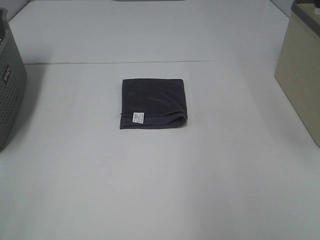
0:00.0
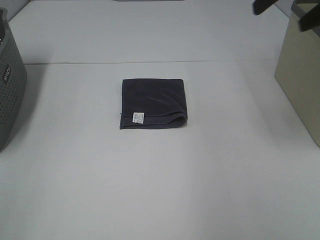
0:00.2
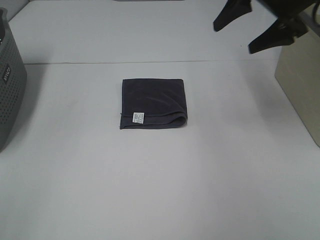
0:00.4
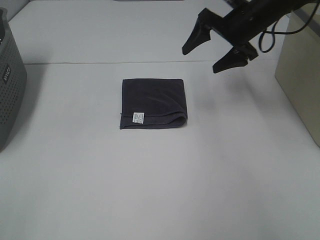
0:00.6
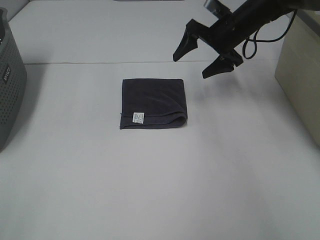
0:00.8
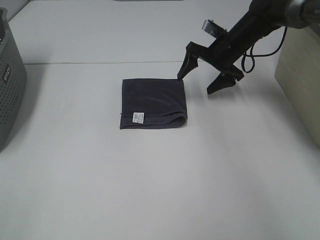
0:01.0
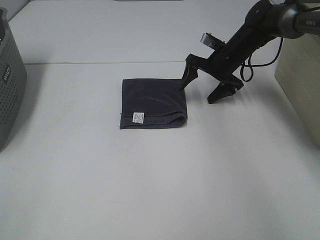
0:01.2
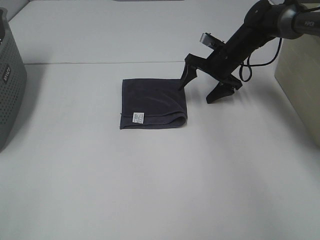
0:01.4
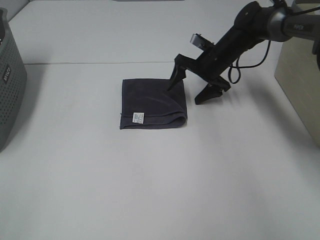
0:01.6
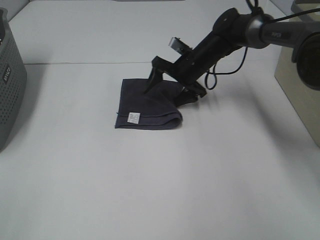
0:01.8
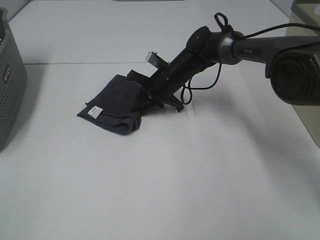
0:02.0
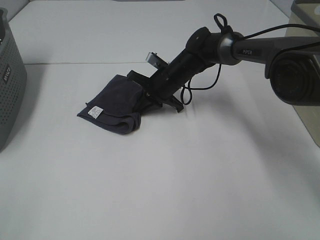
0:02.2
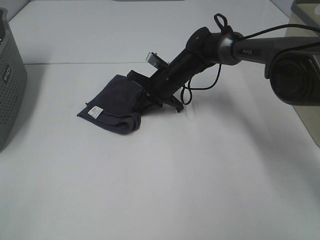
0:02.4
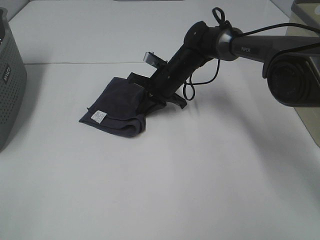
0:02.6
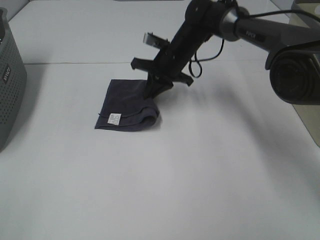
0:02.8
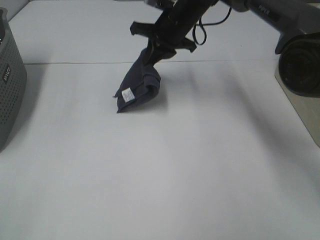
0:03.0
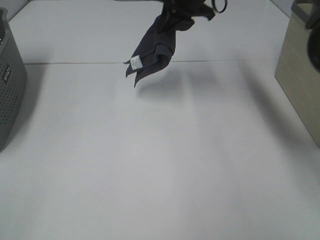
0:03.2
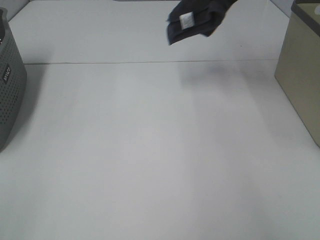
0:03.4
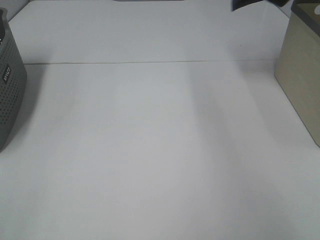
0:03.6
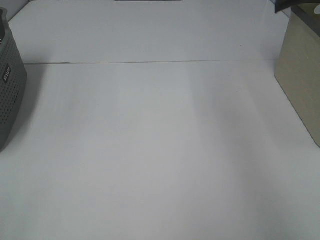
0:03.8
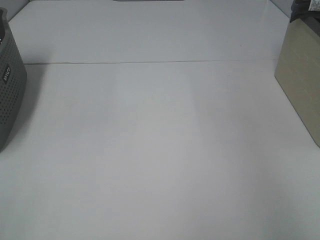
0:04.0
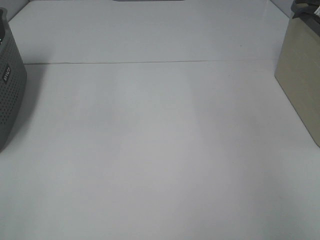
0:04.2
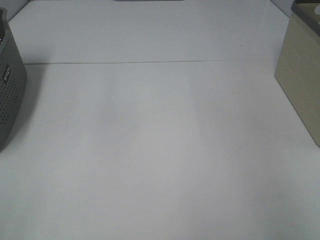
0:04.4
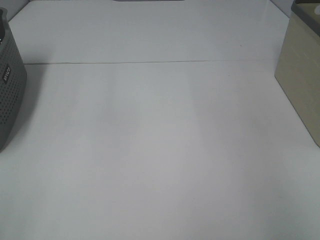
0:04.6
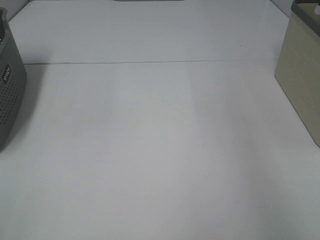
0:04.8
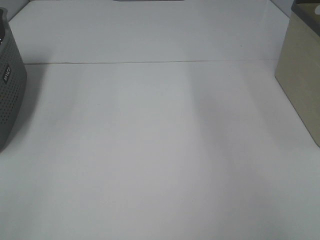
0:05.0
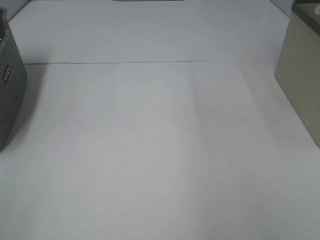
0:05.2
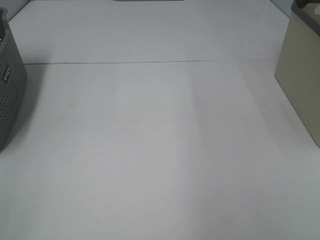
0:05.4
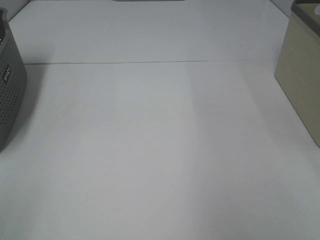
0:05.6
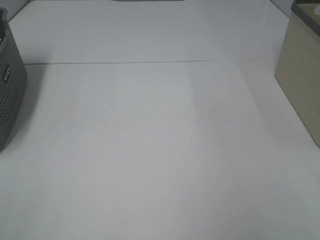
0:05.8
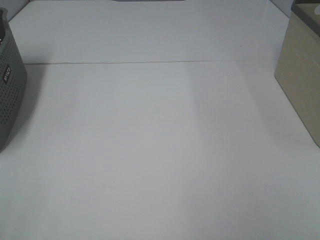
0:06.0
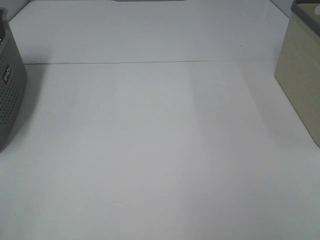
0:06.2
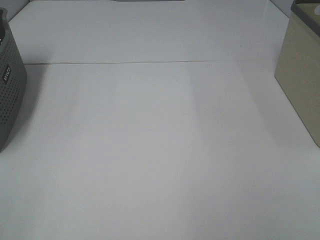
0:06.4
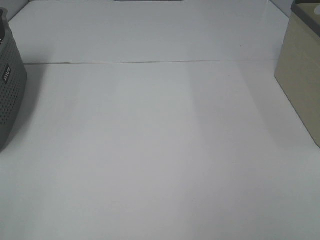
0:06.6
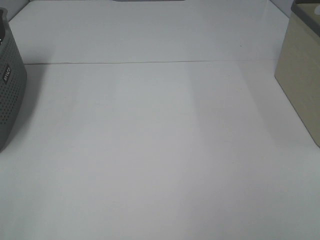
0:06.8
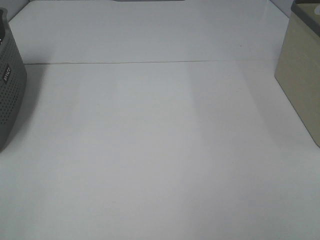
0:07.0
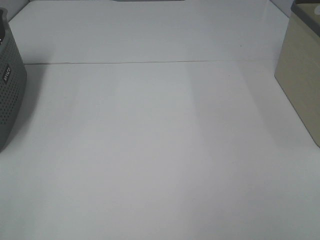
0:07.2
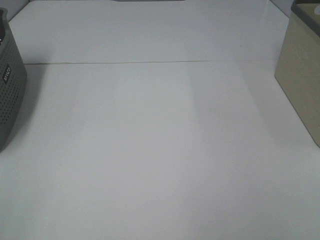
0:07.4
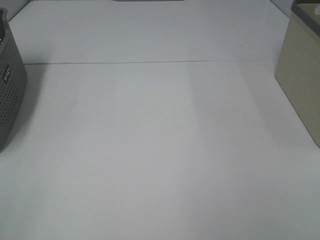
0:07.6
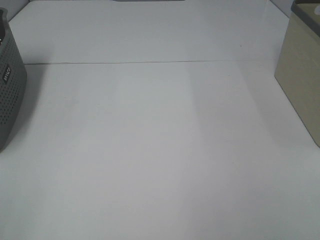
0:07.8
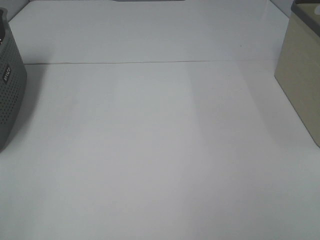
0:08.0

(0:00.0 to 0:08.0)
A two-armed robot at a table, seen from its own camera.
Step, 0:00.0 - 0:02.0: Right hand: grab the folded grey towel.
Step, 0:02.2 - 0:04.4: Right hand: place the grey towel in right basket.
0:00.0 - 0:01.6: The right gripper shifts approximately 40 cm downward, forward and to the left.
0:01.6 - 0:03.2: The right gripper moves upward, some 20 cm, and closes its fingers.
0:03.2 - 0:04.8: The right gripper travels to the right by about 30 cm, and opens its fingers.
0:06.4 - 0:08.0: Both grippers stay put.

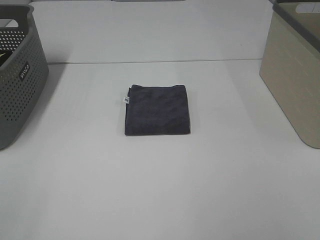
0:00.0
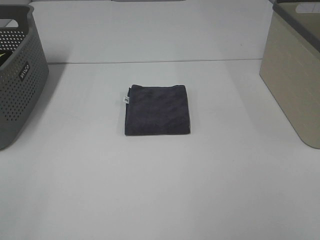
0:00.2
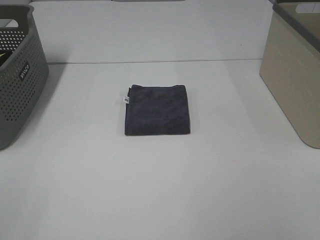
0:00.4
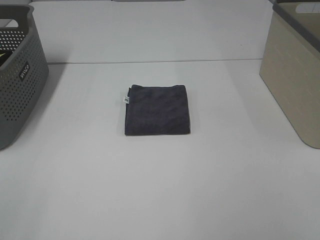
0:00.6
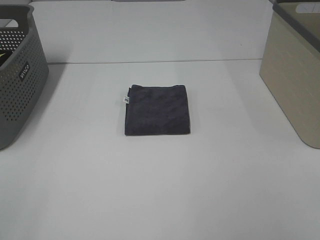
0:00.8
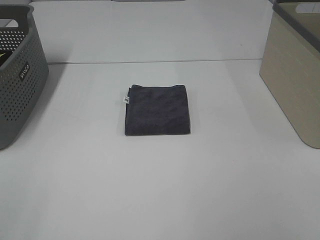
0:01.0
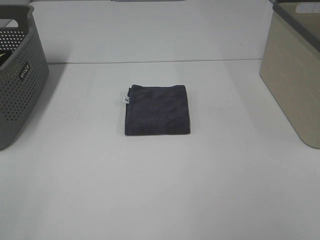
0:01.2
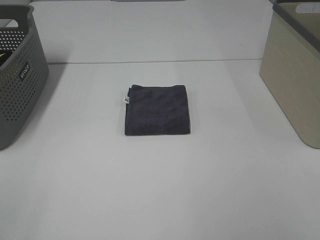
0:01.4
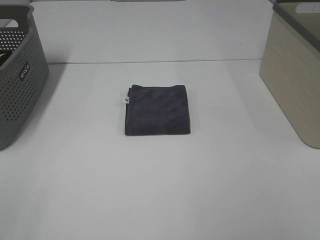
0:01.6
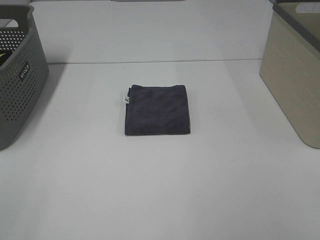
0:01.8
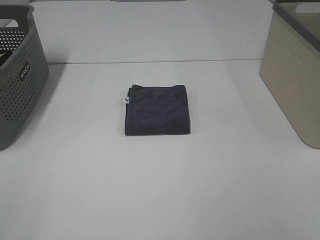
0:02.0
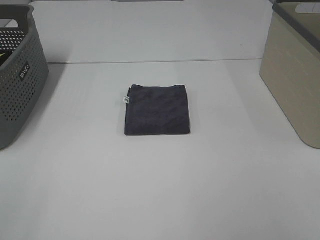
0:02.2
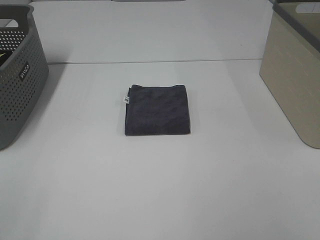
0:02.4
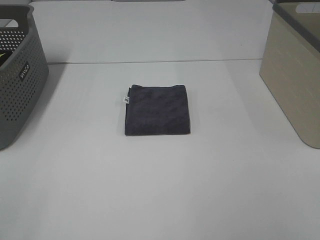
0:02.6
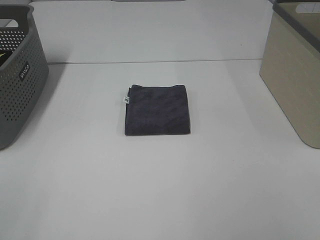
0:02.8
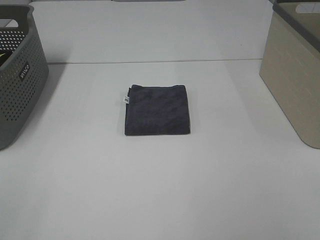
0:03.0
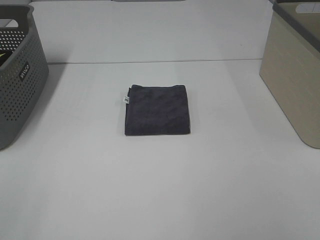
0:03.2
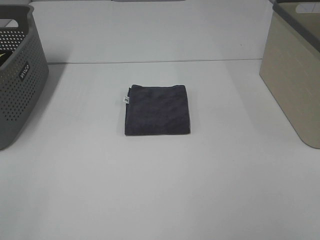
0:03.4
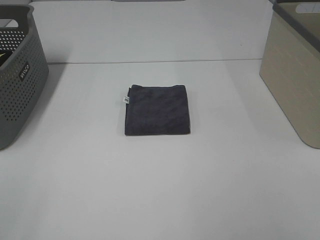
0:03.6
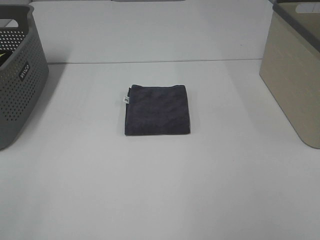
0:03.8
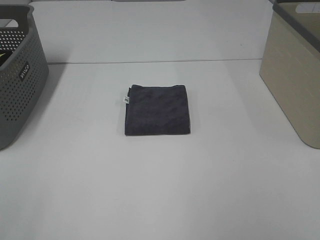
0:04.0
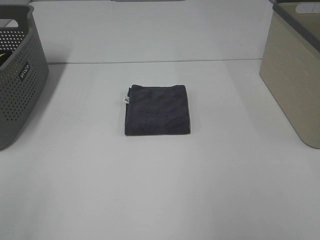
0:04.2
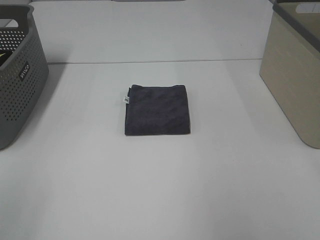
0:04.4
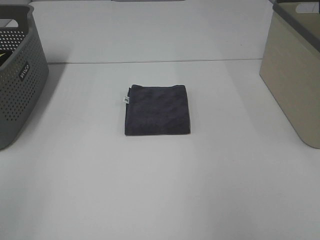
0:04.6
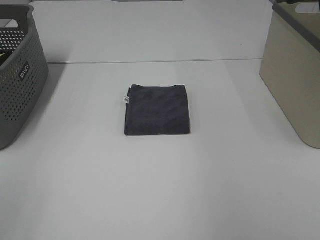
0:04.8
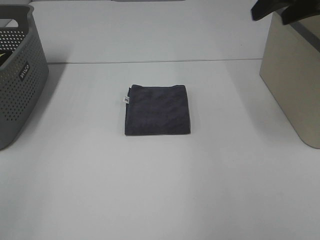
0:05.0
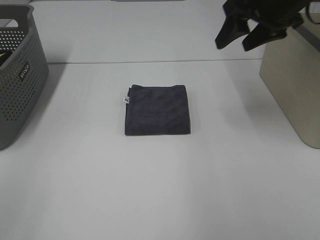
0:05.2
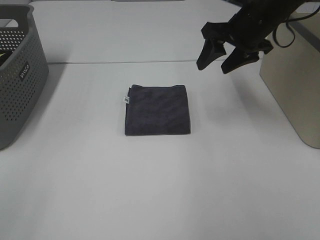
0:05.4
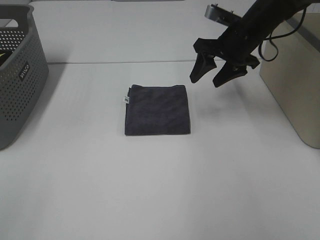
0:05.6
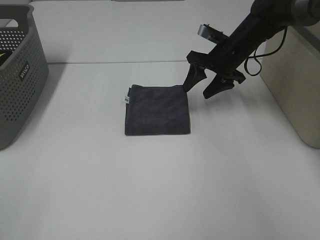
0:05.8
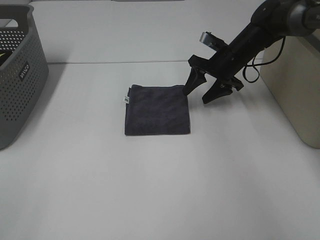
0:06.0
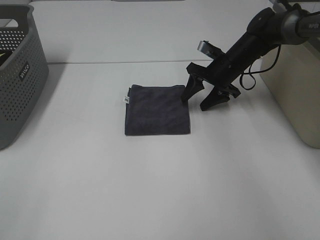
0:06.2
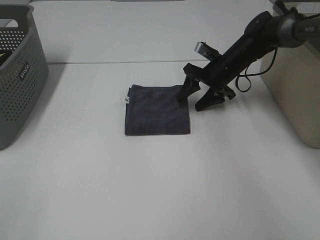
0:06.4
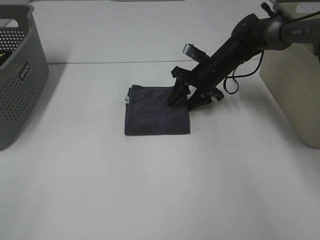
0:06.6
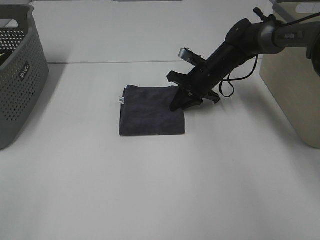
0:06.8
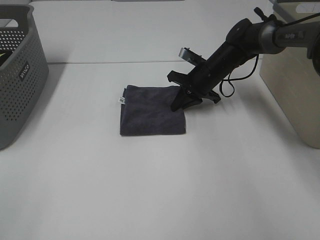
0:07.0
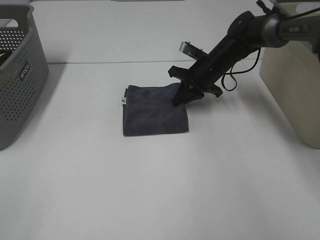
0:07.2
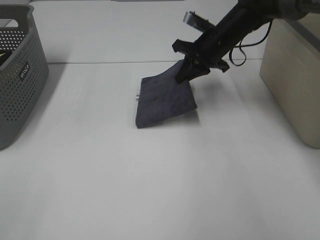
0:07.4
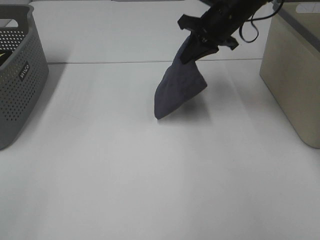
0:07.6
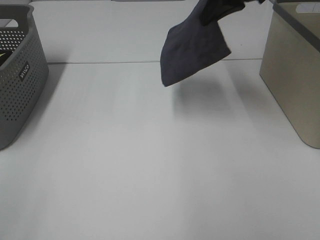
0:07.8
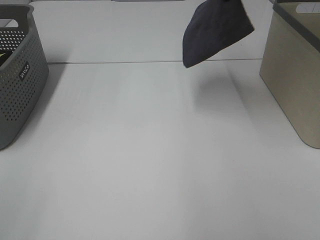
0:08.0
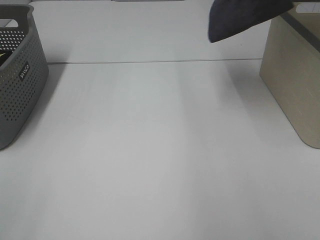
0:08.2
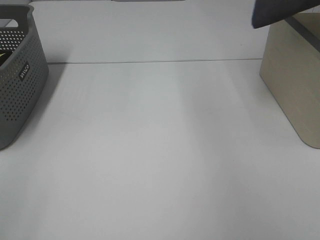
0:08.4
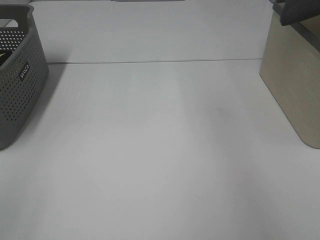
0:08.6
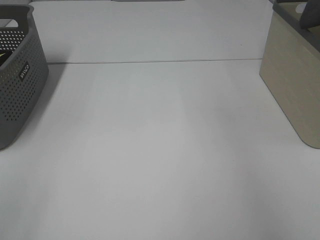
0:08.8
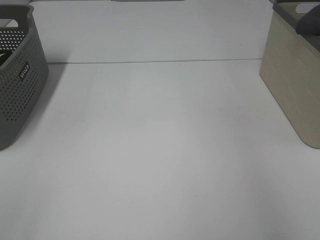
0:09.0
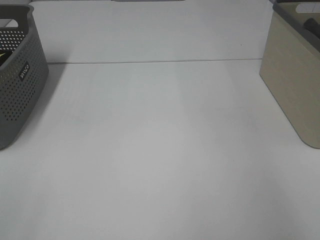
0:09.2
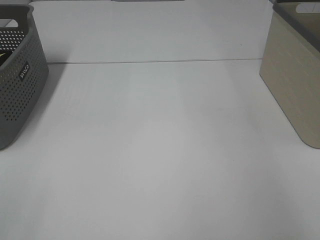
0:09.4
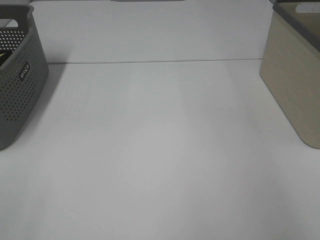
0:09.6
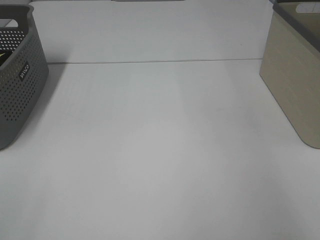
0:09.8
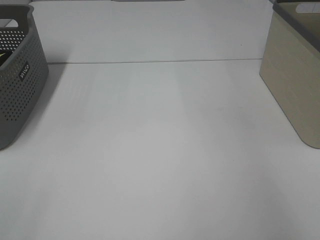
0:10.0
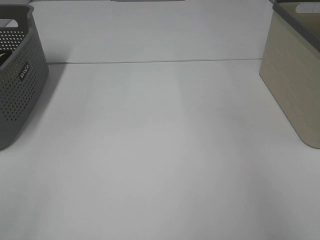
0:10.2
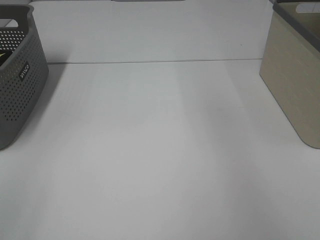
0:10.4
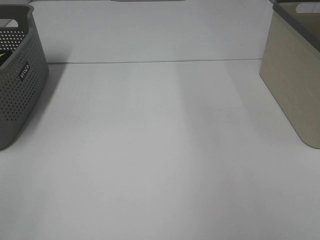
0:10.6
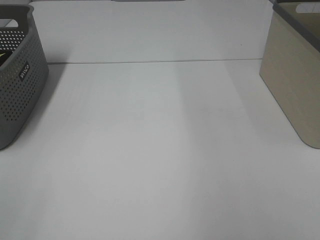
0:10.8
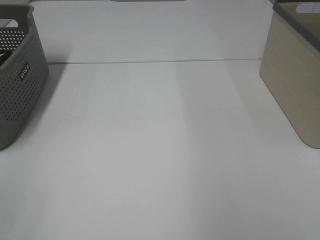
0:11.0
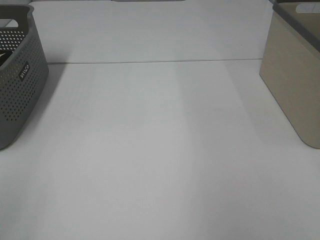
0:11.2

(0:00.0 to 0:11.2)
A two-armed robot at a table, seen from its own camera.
Step, 0:00.0 - 0:06.8: Right hand: grab the folded grey towel.
Step, 0:07.0 - 0:09.6: Right hand: place the grey towel in right basket.
0:00.0 - 0:03.2: Both grippers stay about where they are.
0:04.8 - 0:06.4: The right gripper moves downward, forward and to the left, some 35 cm.
0:06.4 - 0:08.0: The right gripper shifts some 30 cm upward, and closes.
0:08.0 - 0:09.6: The right gripper travels to the right by approximately 25 cm, and opens up.

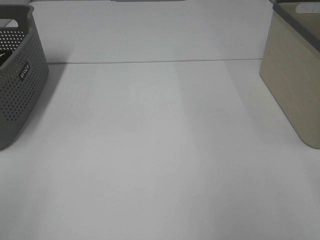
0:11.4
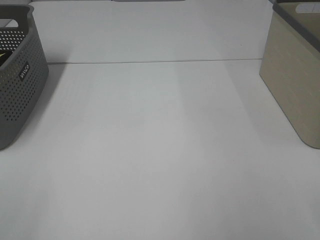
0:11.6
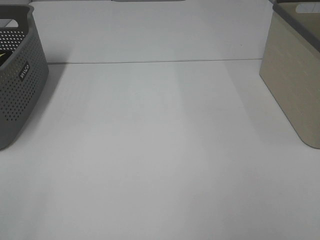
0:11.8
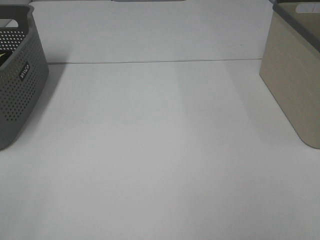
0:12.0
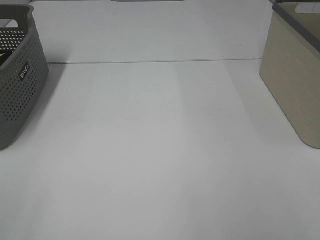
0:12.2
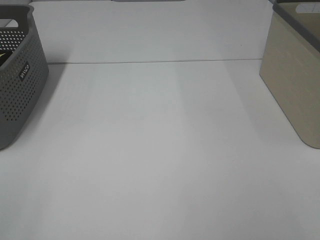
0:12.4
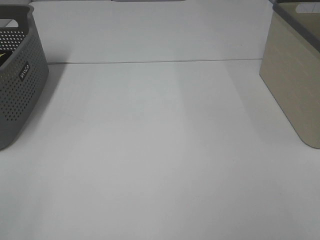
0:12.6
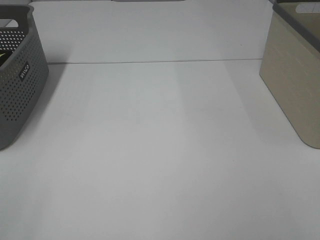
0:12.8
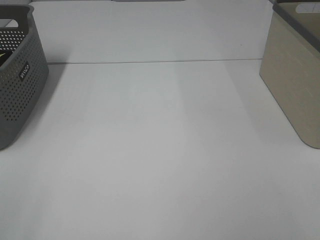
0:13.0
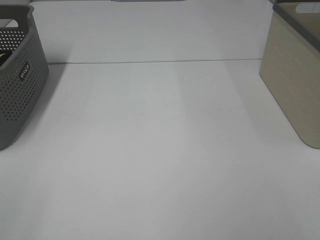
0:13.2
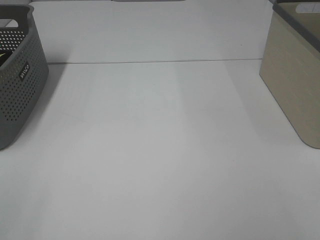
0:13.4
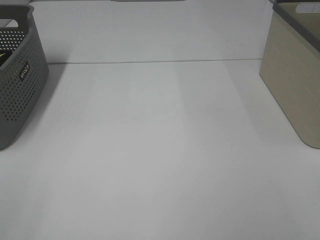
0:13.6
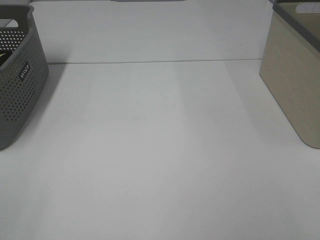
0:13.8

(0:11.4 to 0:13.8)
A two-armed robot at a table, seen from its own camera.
0:12.6 - 0:13.8: Both grippers stay about where they are.

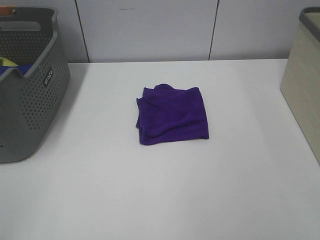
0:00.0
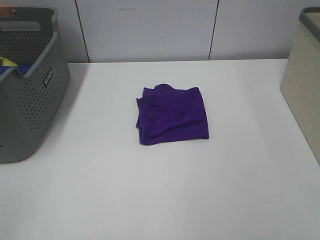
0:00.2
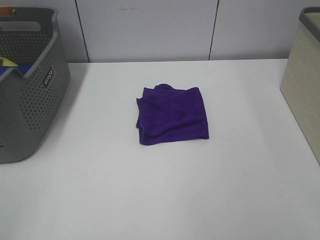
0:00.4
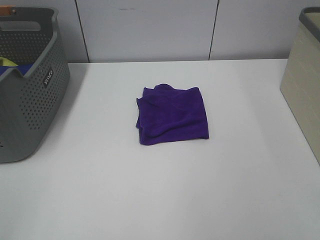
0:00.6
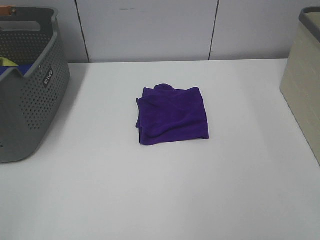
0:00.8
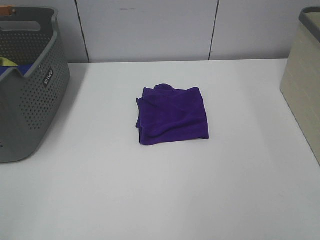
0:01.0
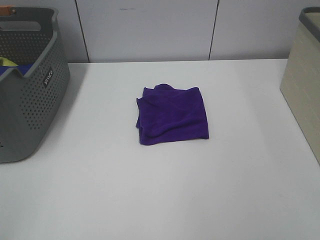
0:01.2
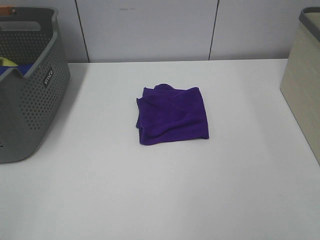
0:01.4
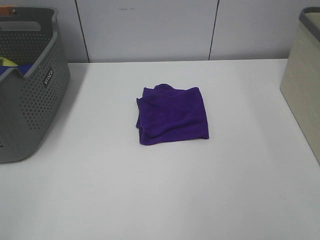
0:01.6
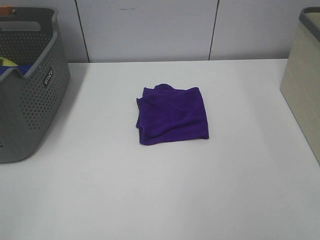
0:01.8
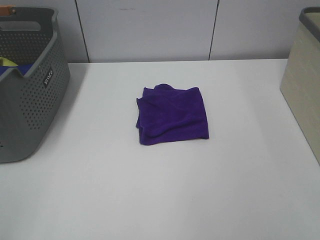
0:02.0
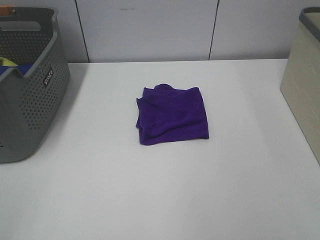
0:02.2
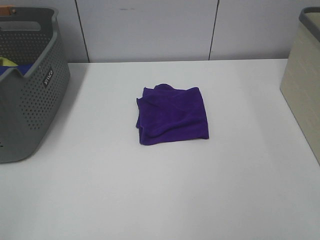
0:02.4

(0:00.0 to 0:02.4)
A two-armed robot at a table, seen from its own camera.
0:00.0 - 0:02.4: The two grippers keep their place.
